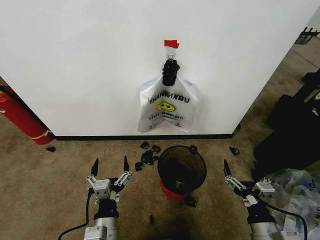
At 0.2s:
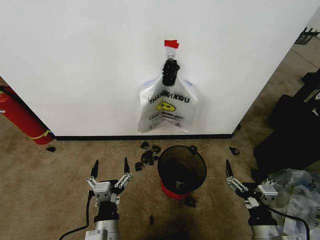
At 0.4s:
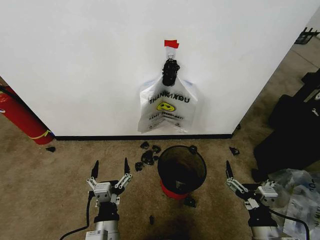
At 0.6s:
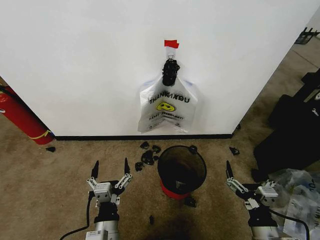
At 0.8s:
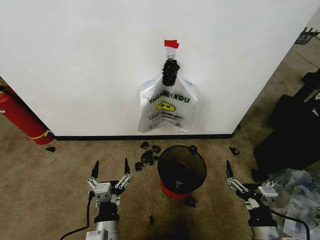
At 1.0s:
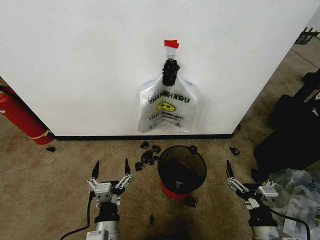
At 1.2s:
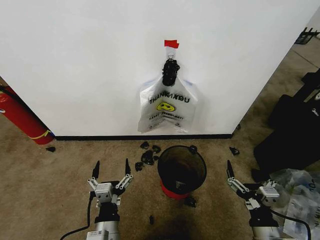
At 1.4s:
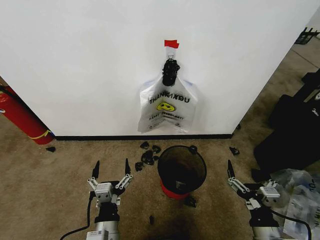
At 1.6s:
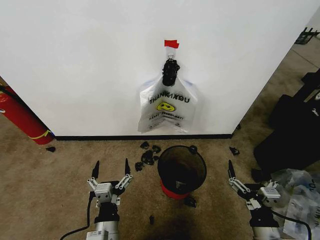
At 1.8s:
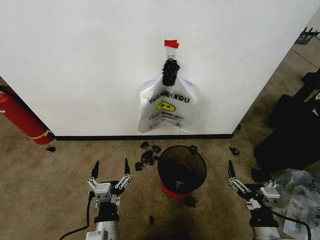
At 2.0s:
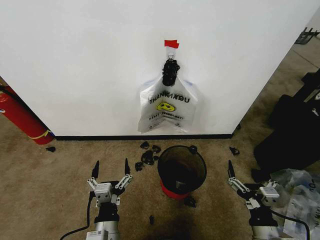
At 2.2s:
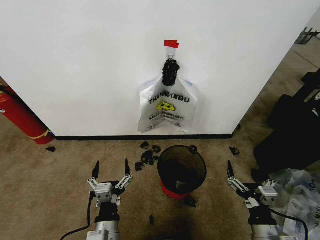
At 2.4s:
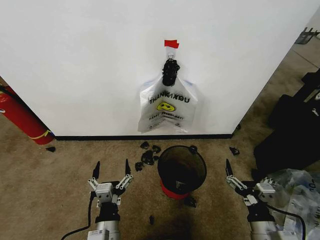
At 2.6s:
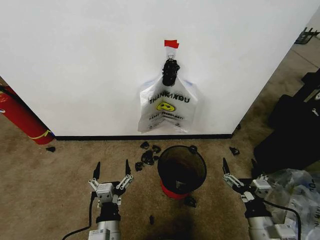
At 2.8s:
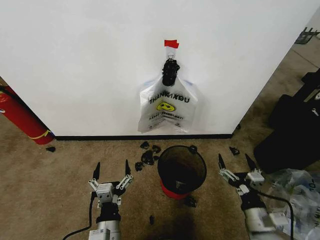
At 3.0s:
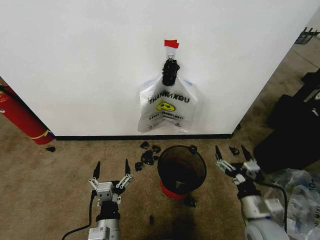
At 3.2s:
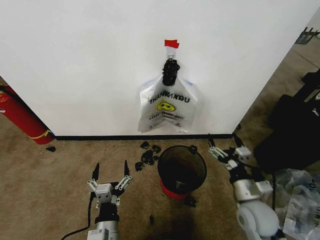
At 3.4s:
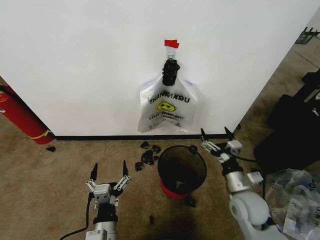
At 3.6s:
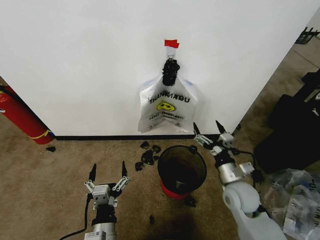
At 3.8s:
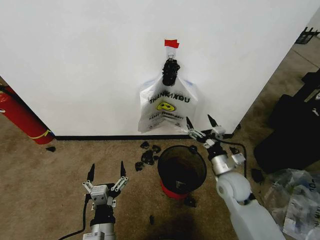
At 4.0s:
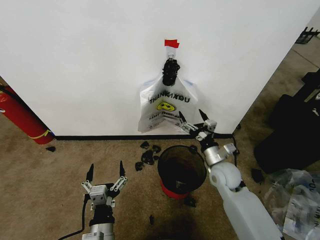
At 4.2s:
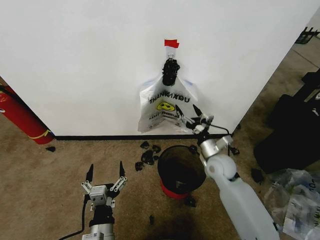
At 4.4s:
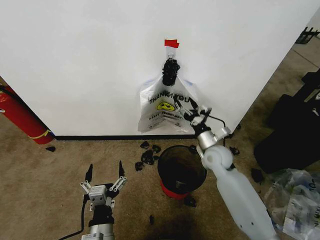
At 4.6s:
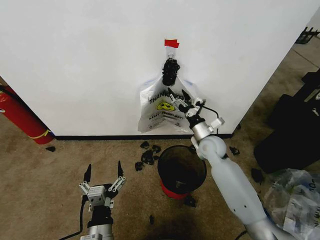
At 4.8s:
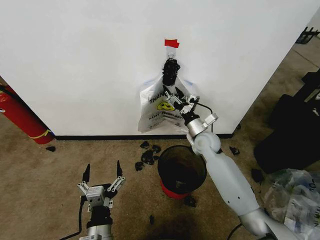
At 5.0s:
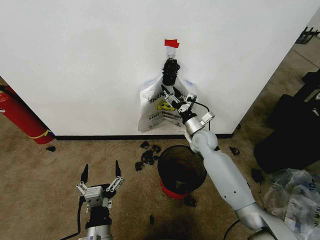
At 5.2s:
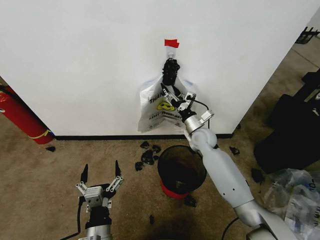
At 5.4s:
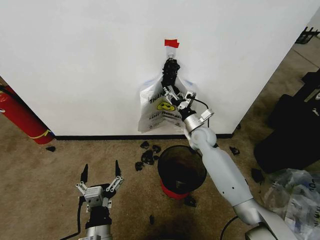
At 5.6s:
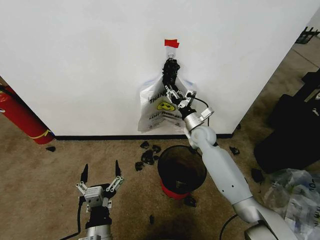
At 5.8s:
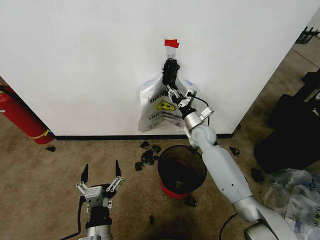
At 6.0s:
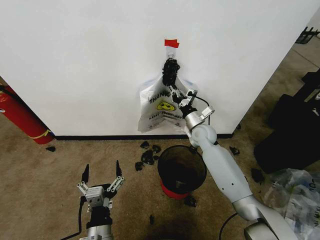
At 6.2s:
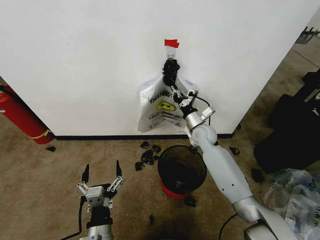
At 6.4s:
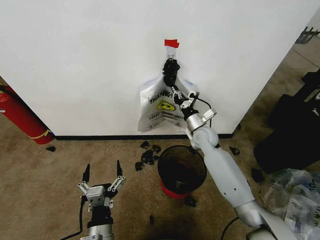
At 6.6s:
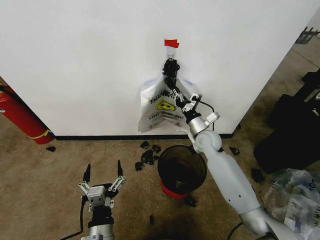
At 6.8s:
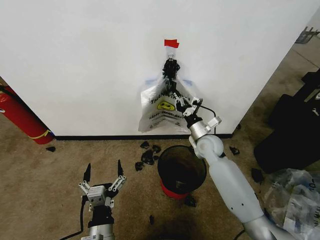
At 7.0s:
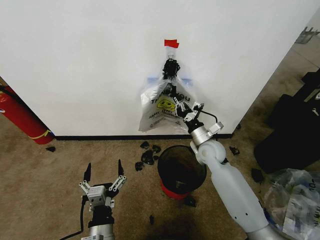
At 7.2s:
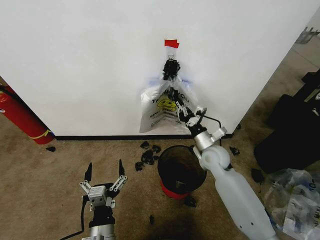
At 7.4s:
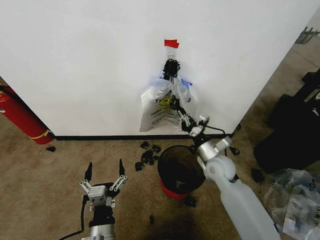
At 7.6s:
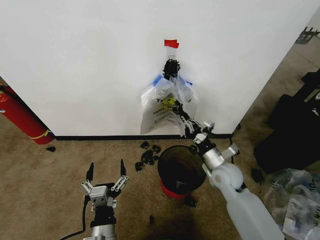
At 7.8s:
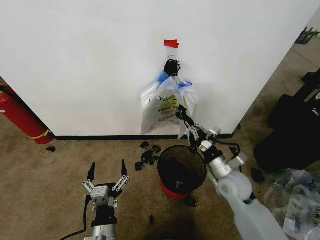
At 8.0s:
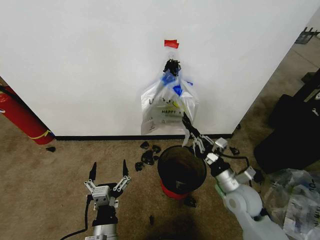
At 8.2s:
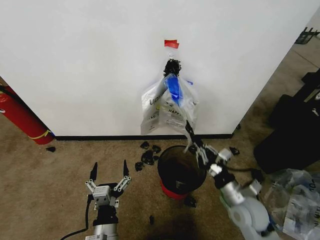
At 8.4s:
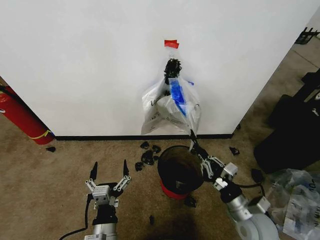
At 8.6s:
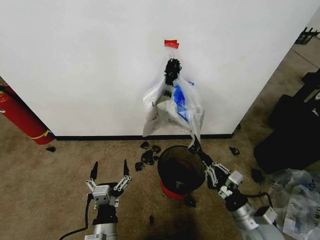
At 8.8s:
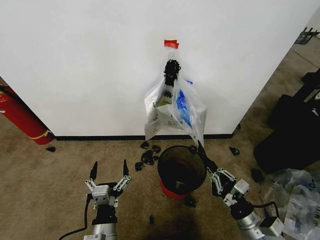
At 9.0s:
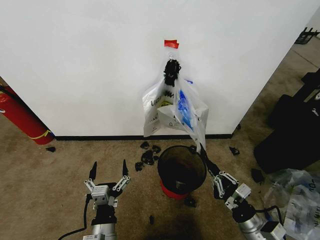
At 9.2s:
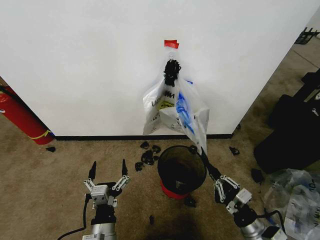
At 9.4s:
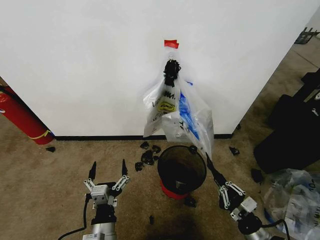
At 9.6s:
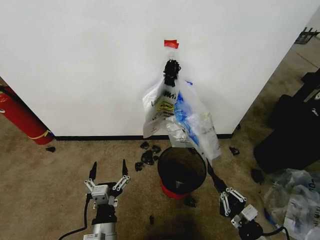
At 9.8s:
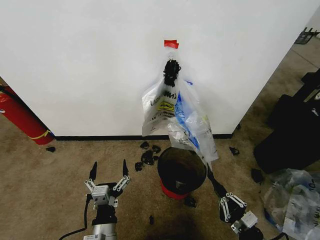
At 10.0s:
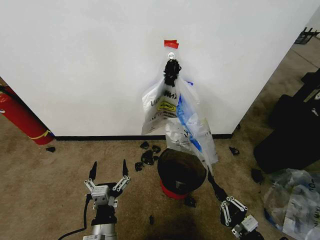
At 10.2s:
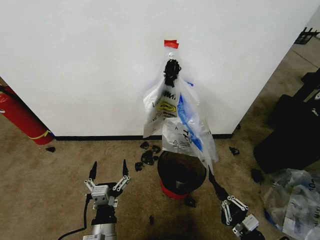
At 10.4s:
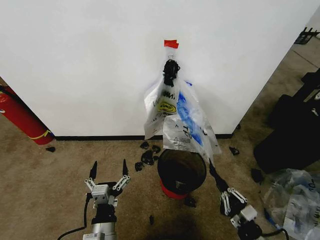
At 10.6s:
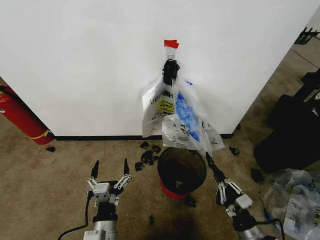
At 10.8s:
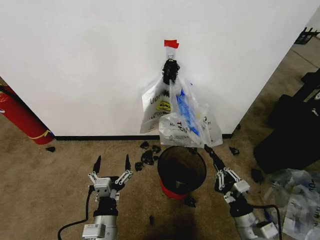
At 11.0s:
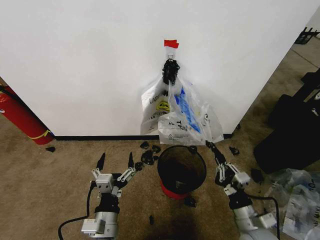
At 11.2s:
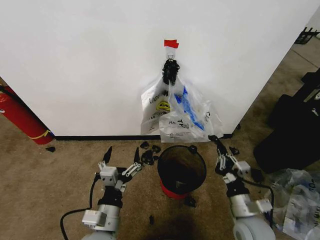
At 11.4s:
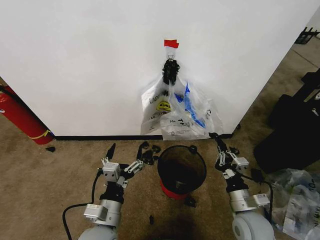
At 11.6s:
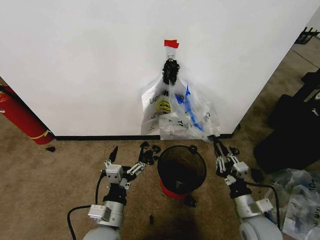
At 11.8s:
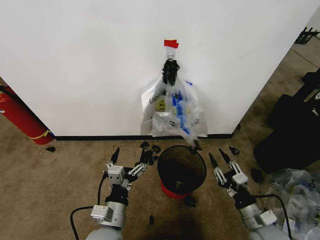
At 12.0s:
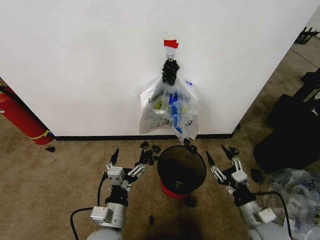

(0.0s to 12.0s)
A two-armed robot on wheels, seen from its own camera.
Task of the whole recording: Pick up the garbage bag from the wall and place it over the trash bin.
1.6s - 3.0s: The right gripper goes approximately 10 cm forward.
3.0s - 4.4s: The right gripper heads forward, covering roughly 25 cm.
4.4s - 6.0s: The right gripper moves forward, approximately 10 cm, and closes.
6.0s - 7.6s: The right gripper heads backward, covering about 15 cm.
7.6s - 9.0s: The right gripper heads backward and to the right, covering approximately 20 cm.
9.0s - 10.4s: The right gripper moves some 5 cm.
10.4s - 12.0s: The right gripper moves forward and upward, about 10 cm, and opens its fingers.

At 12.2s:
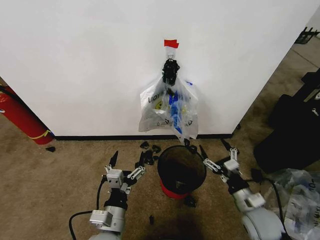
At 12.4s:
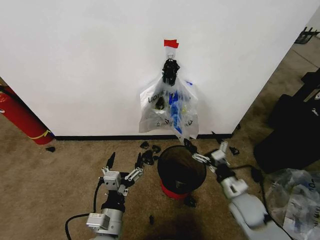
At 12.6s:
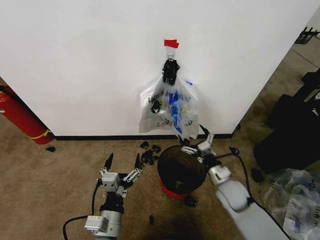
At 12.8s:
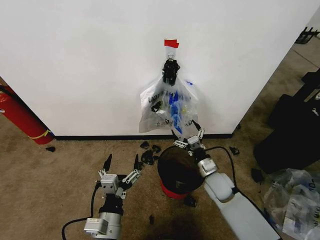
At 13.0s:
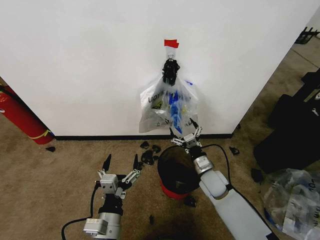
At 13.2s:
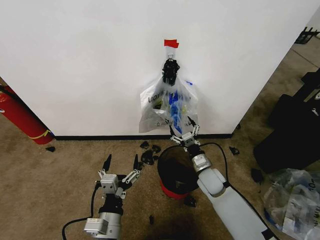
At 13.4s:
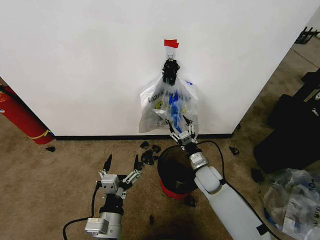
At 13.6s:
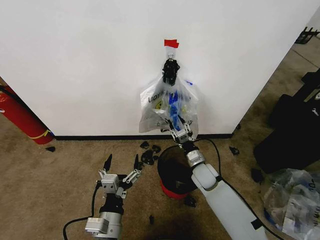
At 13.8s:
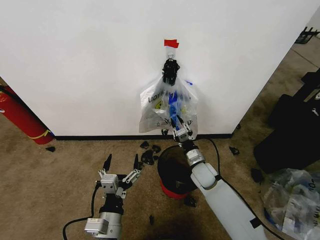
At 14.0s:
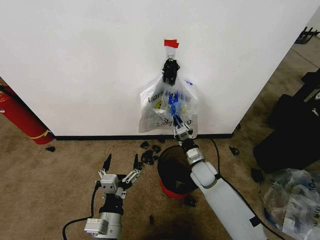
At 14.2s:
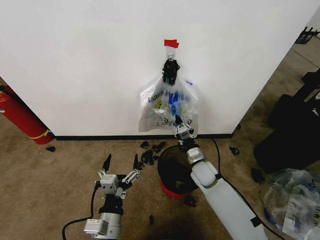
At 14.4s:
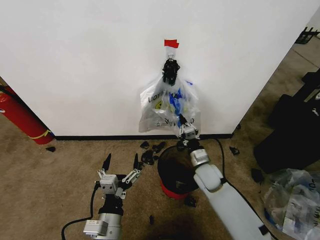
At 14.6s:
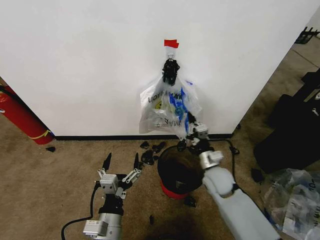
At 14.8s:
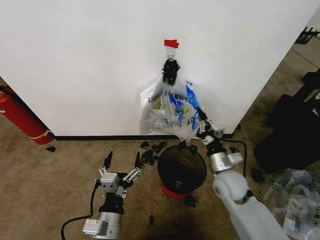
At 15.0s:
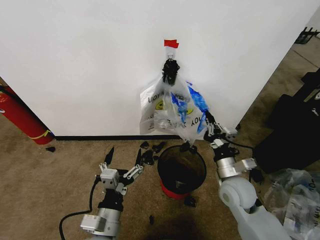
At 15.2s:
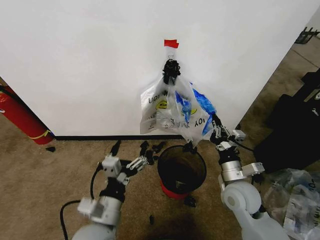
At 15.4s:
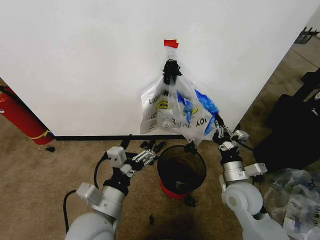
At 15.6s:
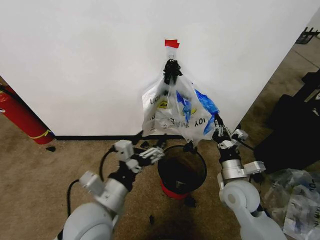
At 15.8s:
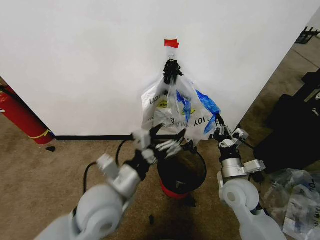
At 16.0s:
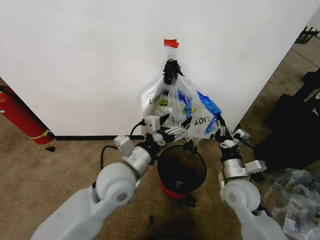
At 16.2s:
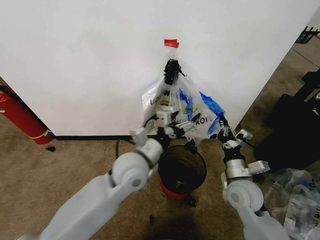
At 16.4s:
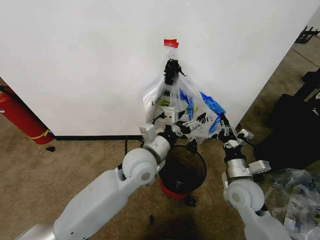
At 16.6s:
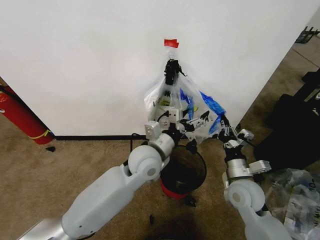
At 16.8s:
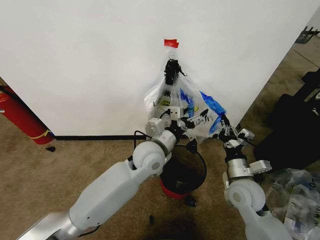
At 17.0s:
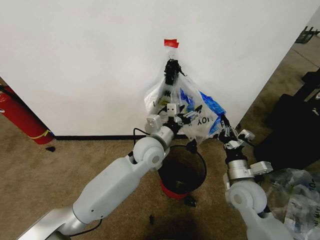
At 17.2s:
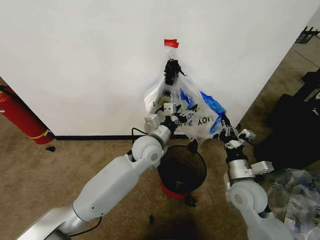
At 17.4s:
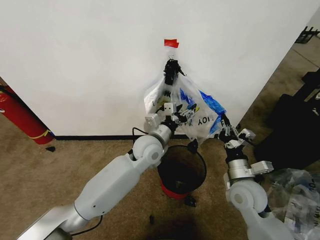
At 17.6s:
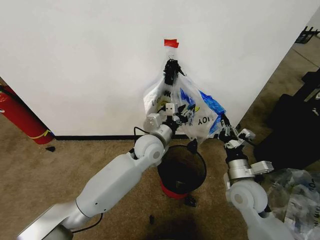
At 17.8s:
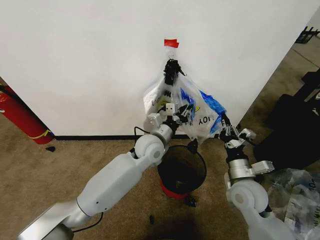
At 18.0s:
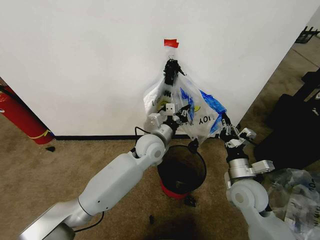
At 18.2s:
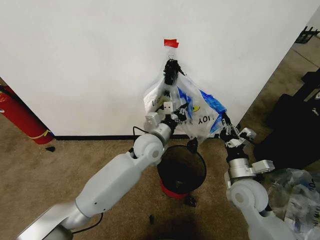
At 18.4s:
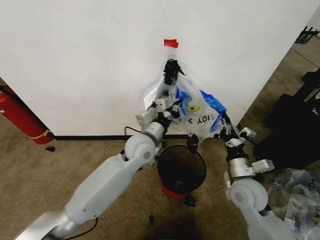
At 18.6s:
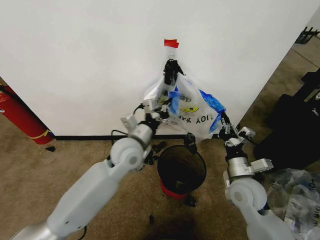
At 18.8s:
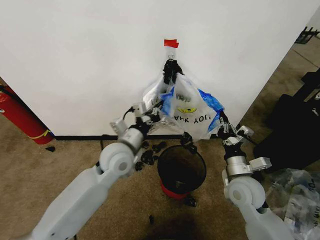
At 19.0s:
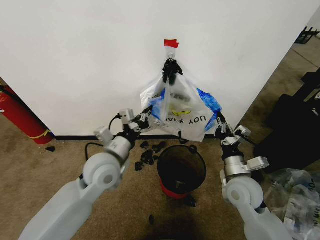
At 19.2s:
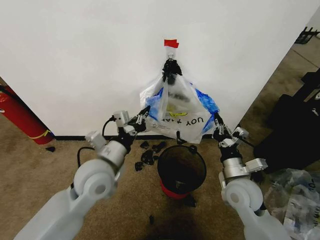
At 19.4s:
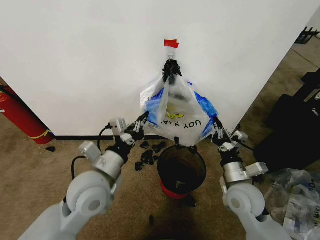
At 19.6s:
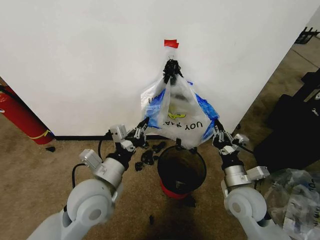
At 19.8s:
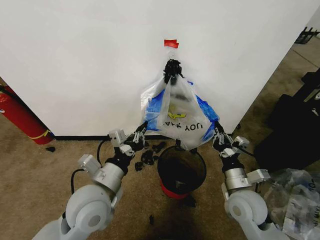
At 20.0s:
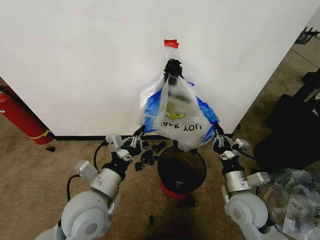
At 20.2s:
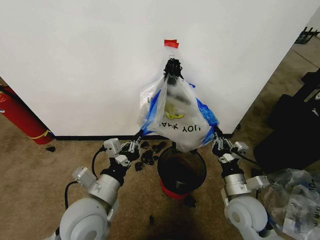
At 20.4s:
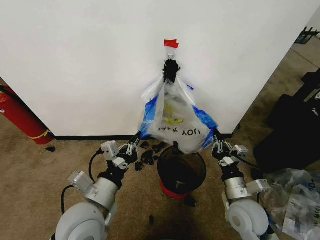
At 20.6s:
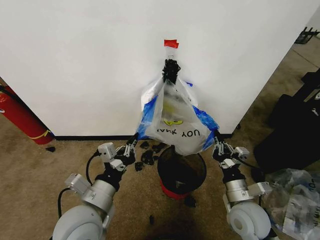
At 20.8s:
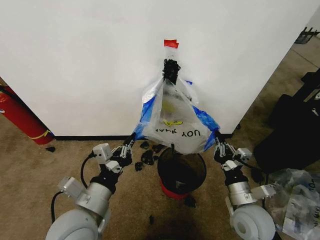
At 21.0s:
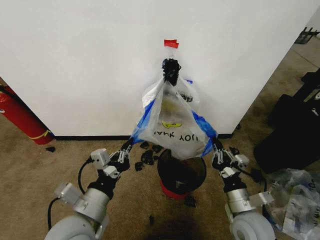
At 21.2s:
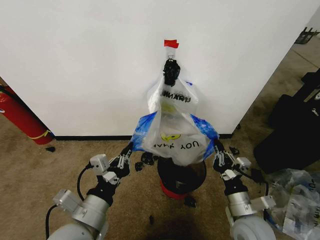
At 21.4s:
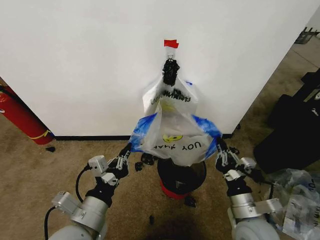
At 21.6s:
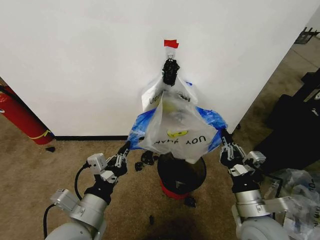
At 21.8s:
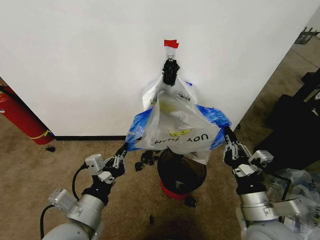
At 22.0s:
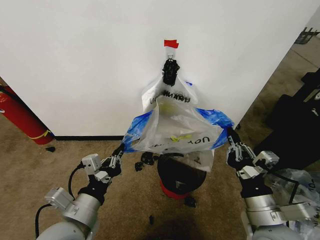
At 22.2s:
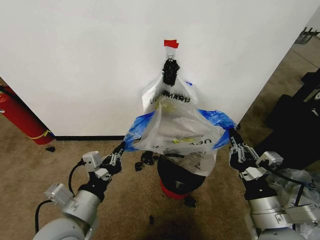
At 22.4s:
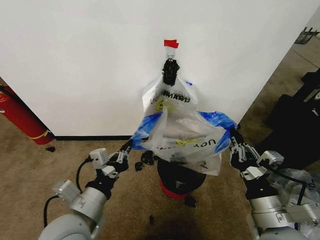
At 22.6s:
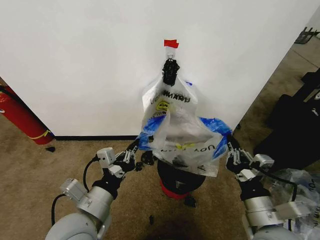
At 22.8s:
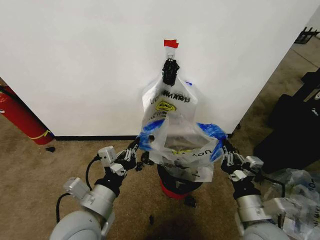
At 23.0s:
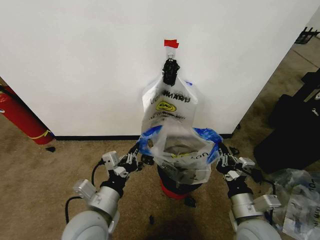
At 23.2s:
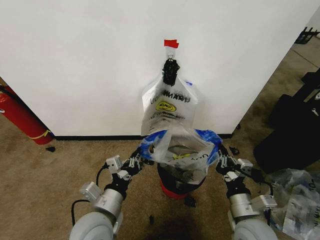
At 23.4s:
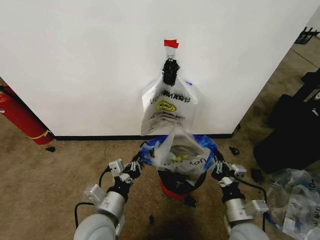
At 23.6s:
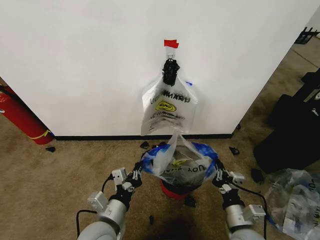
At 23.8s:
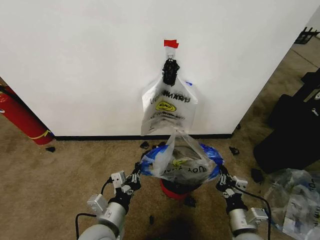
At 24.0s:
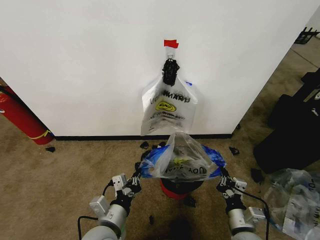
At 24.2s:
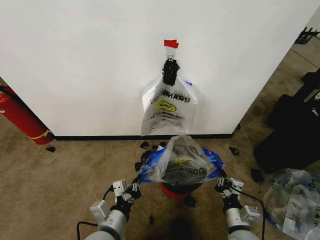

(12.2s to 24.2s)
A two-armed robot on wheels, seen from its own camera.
Task of the whole recording: Pick up the garbage bag from the wall and place it over the trash bin.
12.2s - 13.8s: The right gripper is displaced forward and to the left by about 20 cm, and closes.
13.8s - 15.2s: The left gripper travels upward by some 5 cm. Meanwhile the right gripper shifts roughly 15 cm backward, upward and to the right.
15.2s - 16.6s: The left gripper heads forward and to the right, covering some 20 cm.
16.6s - 18.2s: The left gripper shifts approximately 5 cm forward, and closes its fingers.
18.2s - 19.8s: The left gripper travels backward and to the left by about 25 cm.
19.8s - 21.2s: Both grippers move backward, about 5 cm.
21.2s - 22.6s: The right gripper moves upward, some 10 cm.
22.6s - 24.2s: Both grippers move downward, some 15 cm.
